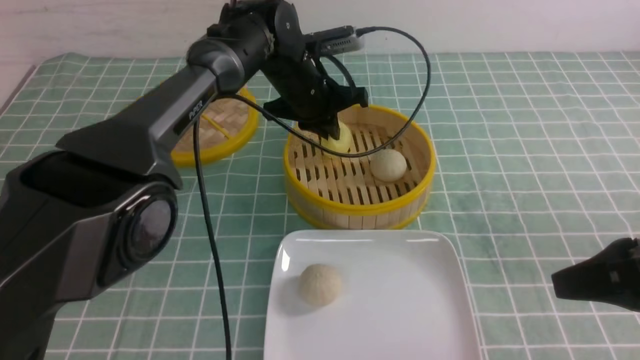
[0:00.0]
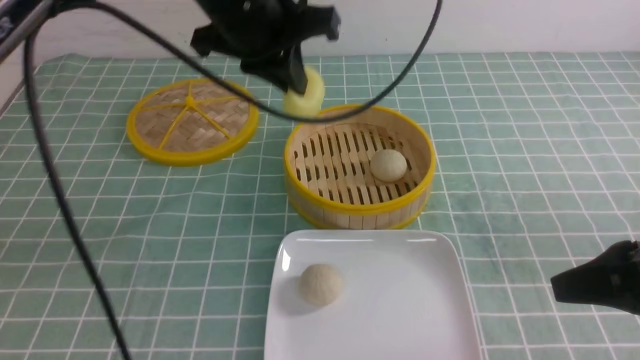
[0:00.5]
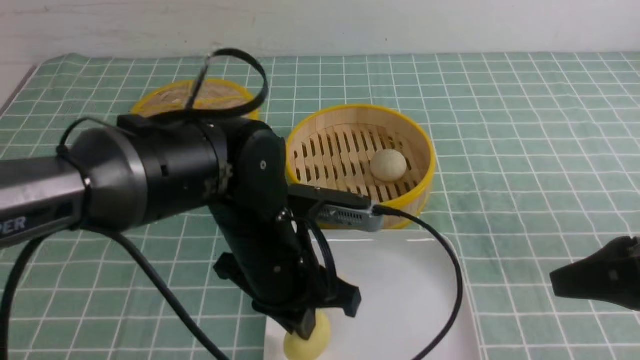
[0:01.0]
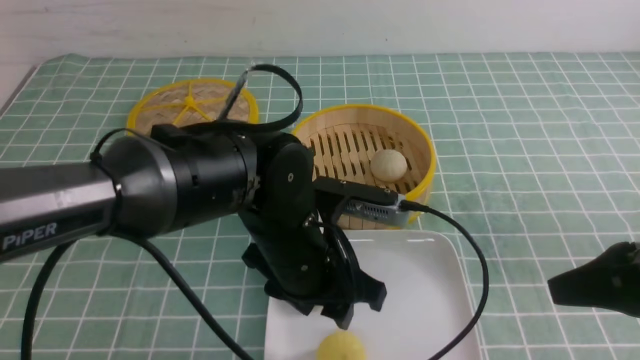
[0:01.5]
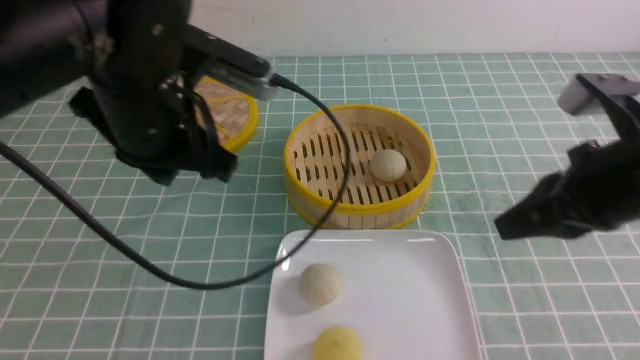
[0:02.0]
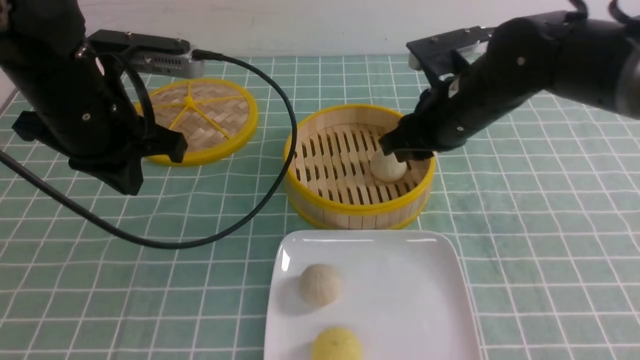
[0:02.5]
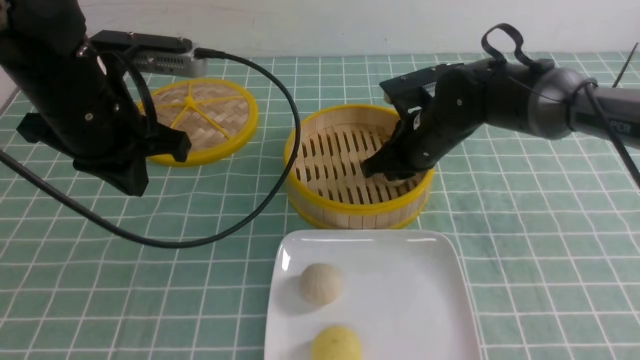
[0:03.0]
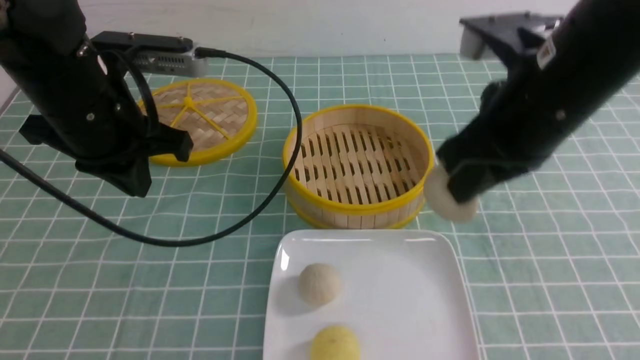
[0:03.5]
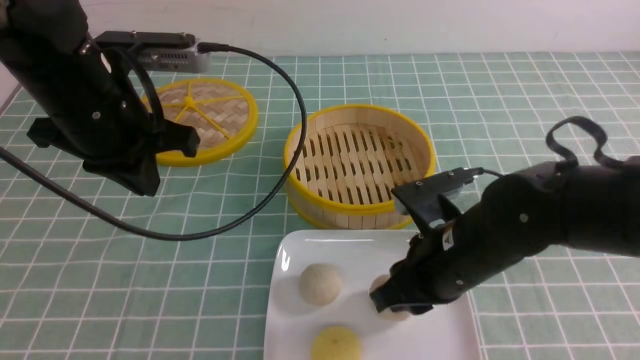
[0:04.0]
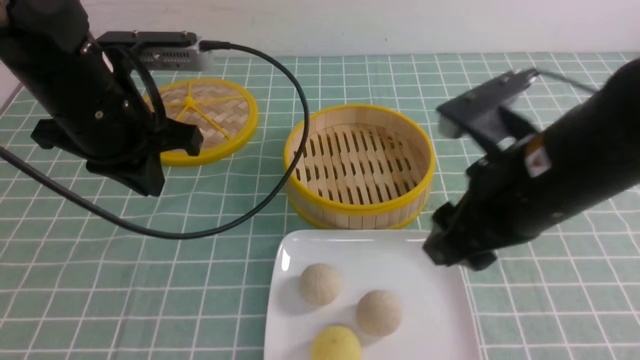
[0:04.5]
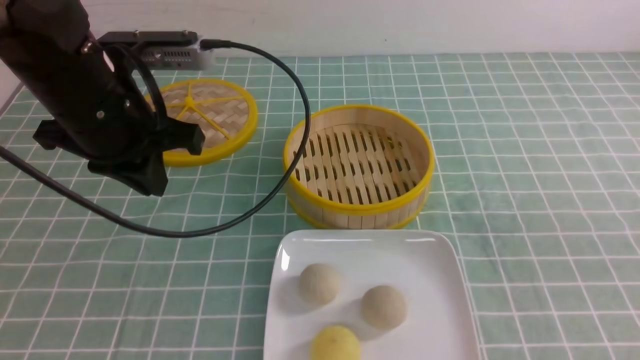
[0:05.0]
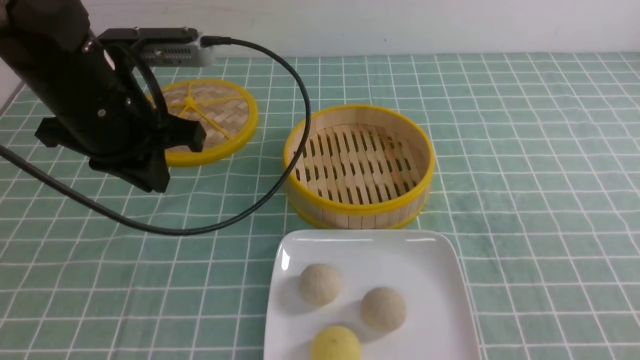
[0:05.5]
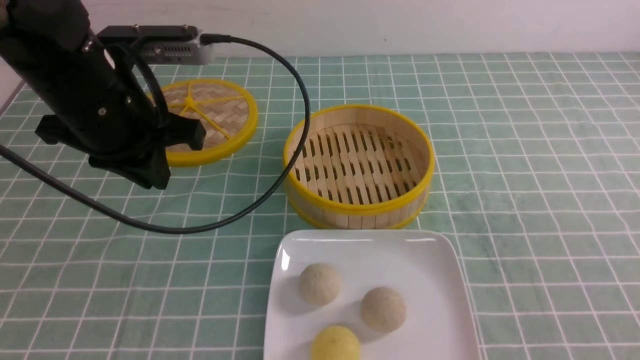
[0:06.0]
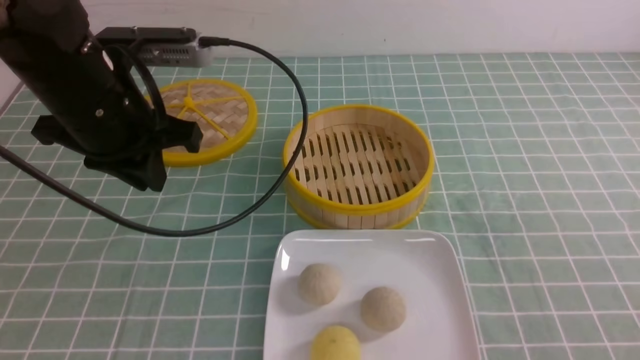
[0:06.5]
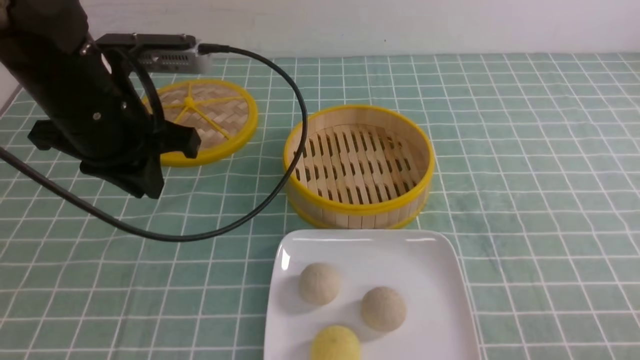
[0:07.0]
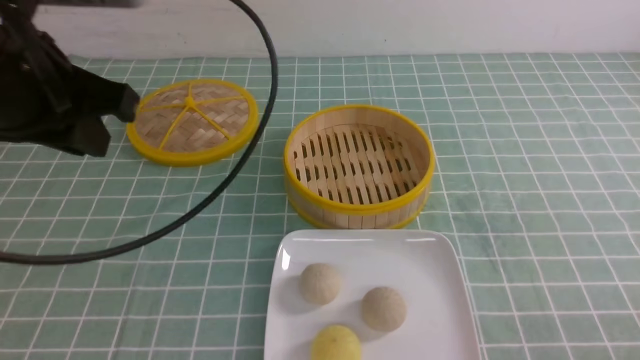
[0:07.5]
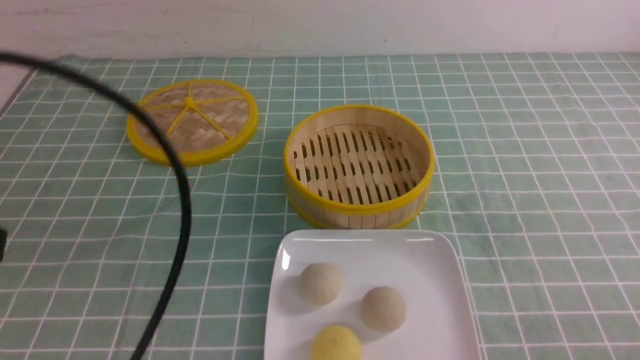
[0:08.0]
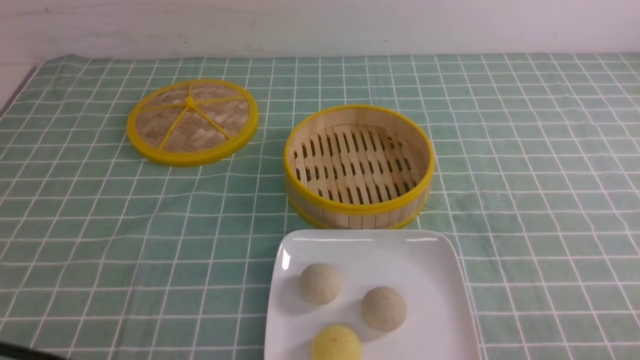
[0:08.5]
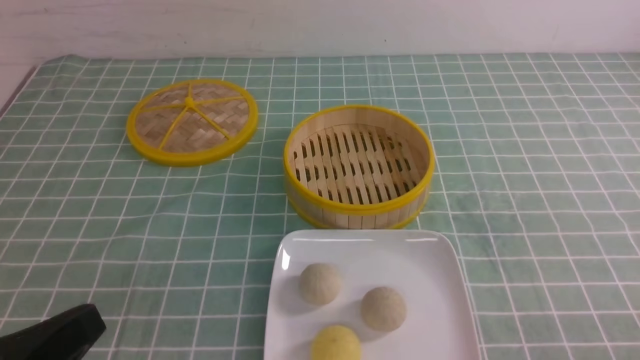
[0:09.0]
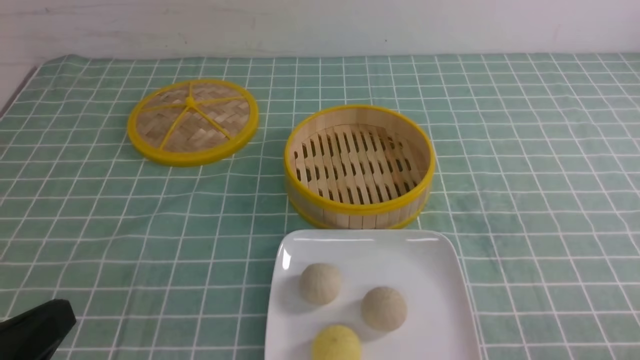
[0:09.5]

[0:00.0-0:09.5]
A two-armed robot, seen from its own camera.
Step, 0:00.5 to 0:01.0: use the left arm to put the steamed stuffed bun into the plate.
Step, 0:01.5 to 0:03.0: use the right arm to grab the steamed stuffed bun that is closest to it.
Step, 0:03.5 to 0:04.0: use the right arm to put the steamed stuffed bun into the plate.
0:00.0 to 0:02.0: The right gripper travels forward and to the left by roughly 10 cm; the left gripper shifts about 20 cm backward and to the left, and opens and closes again.
0:02.0 to 0:04.0: The left gripper shifts roughly 5 cm to the left. Meanwhile the right gripper shifts roughly 15 cm to the left and downward, moves roughly 15 cm forward and comes back, and opens its fingers.
0:04.0 to 0:05.5: The right gripper shifts approximately 30 cm backward, to the right and upward, and closes its fingers.
0:05.5 to 0:07.5: The right gripper shifts about 15 cm downward. Meanwhile the left gripper shifts some 10 cm backward and upward.
0:07.5 to 0:09.5: The left gripper goes approximately 20 cm backward and downward, and closes its fingers.

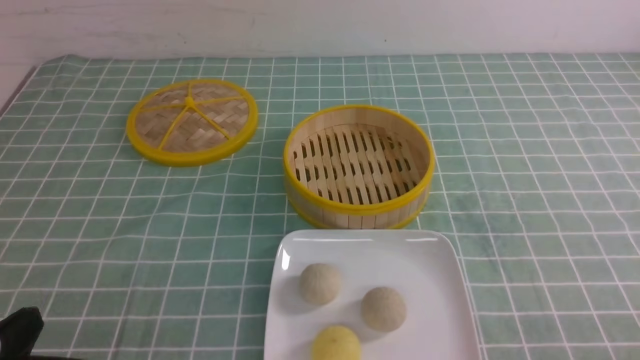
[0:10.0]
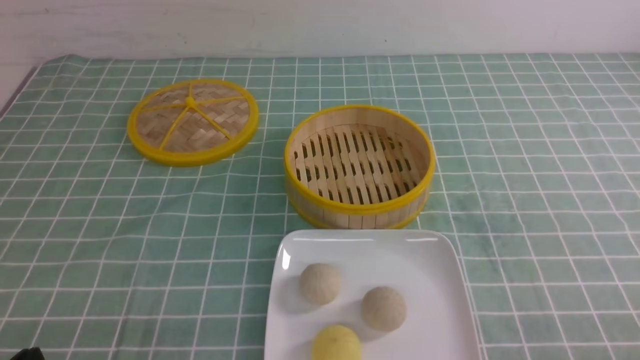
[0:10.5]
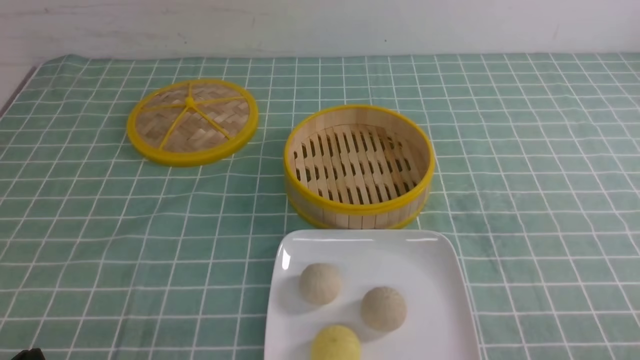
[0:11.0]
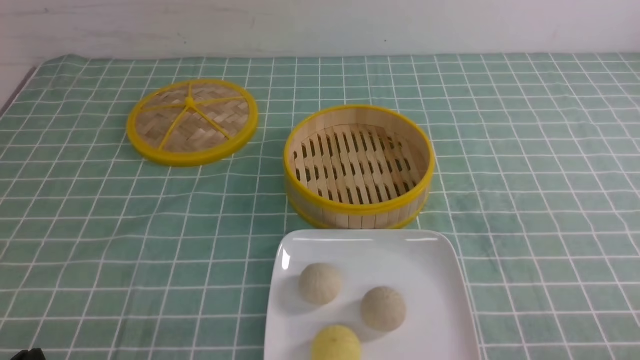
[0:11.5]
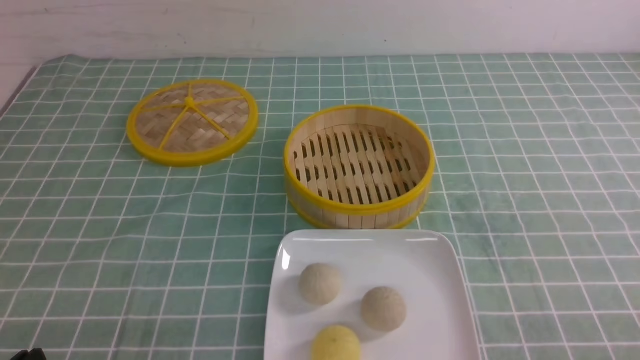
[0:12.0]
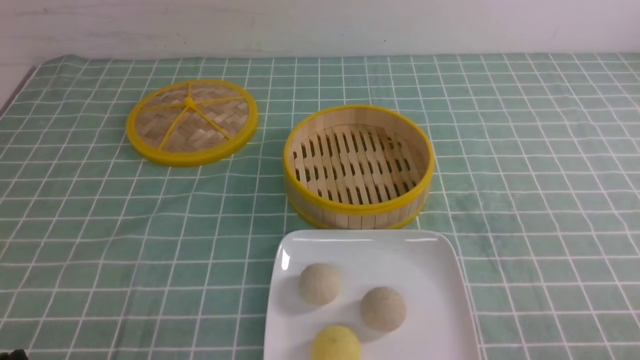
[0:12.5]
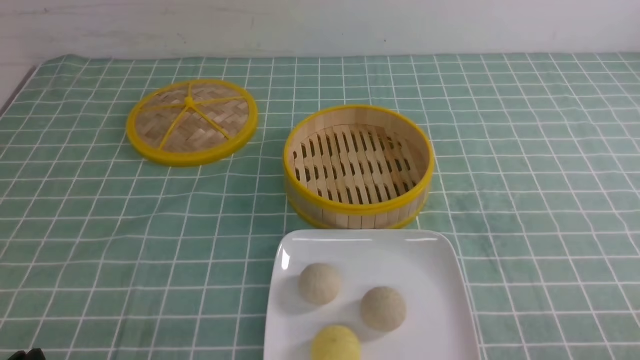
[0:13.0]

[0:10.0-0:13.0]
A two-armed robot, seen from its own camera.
0:10.0 to 0:11.5: The left gripper is displaced downward by about 5 cm.
0:11.5 to 0:13.0: Both grippers stay about where they are.

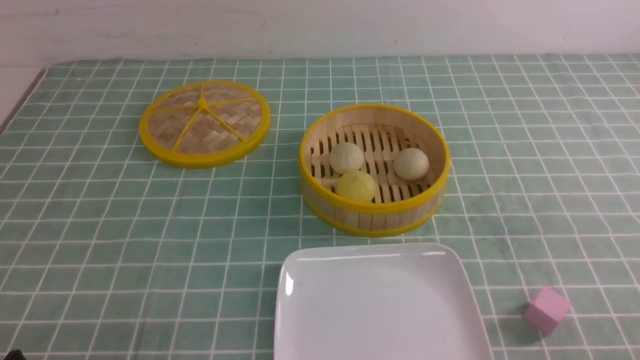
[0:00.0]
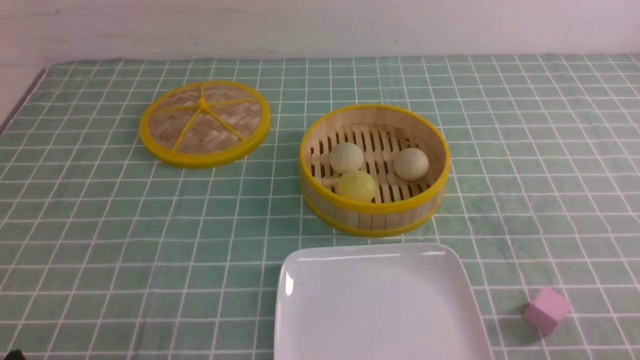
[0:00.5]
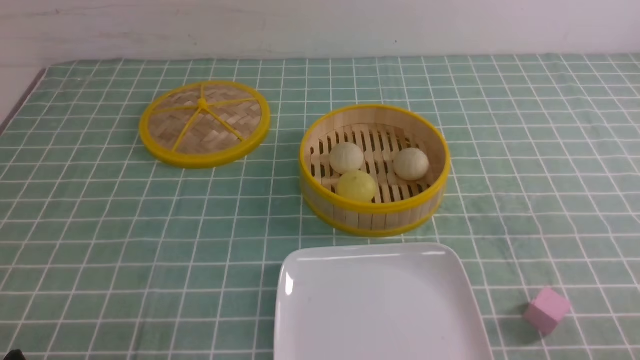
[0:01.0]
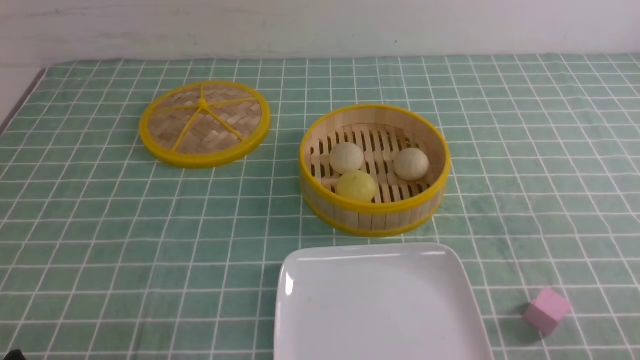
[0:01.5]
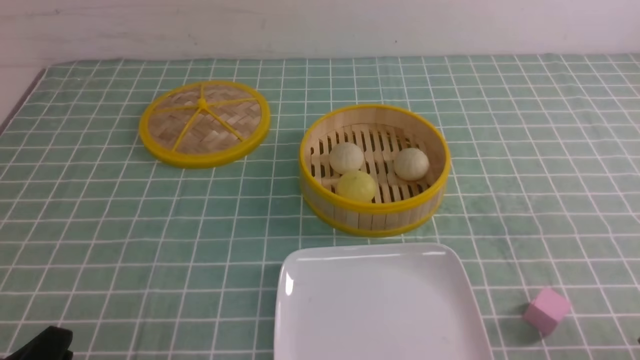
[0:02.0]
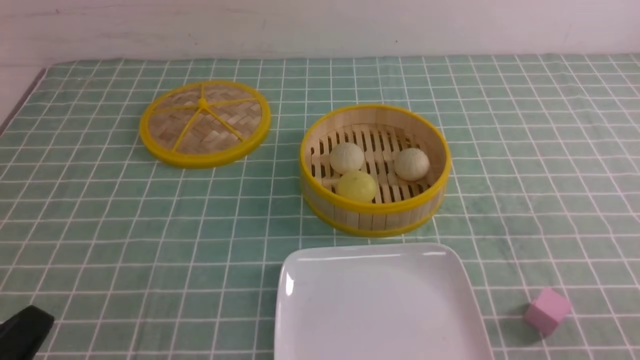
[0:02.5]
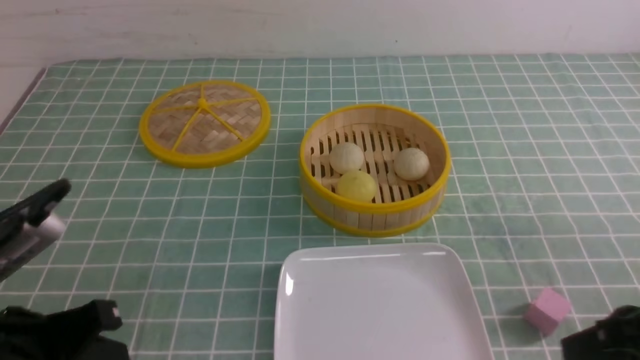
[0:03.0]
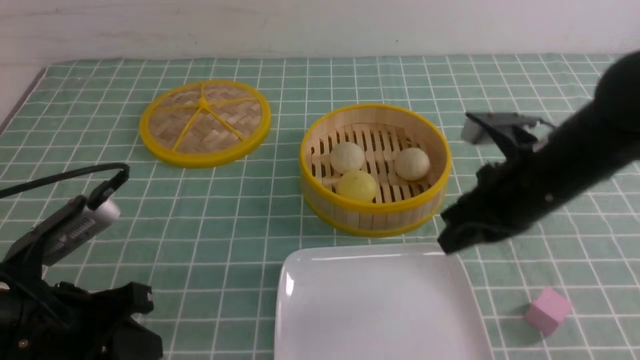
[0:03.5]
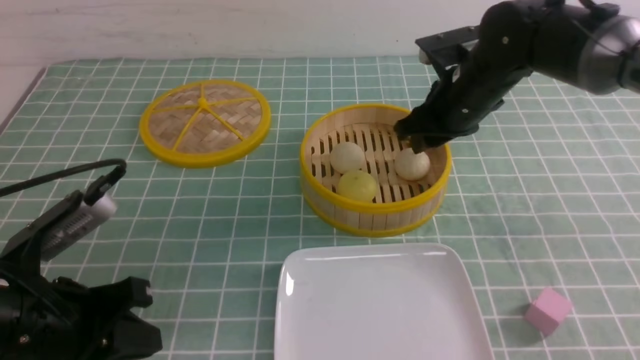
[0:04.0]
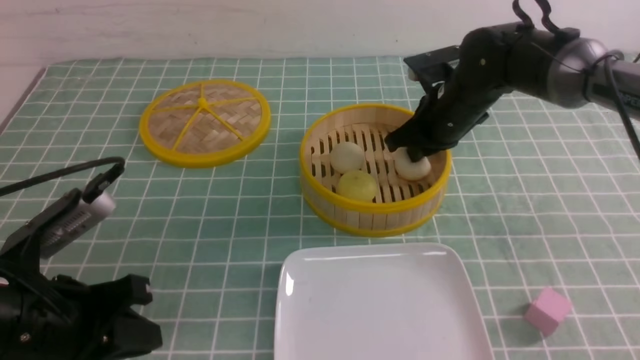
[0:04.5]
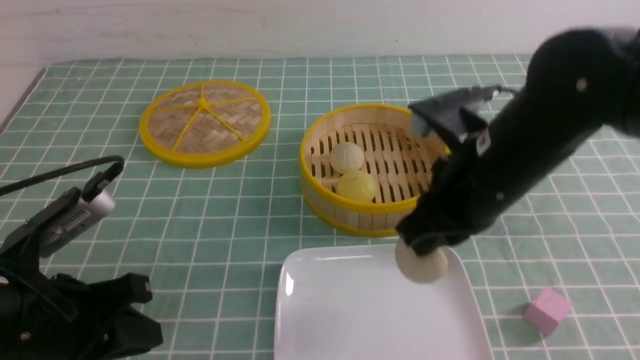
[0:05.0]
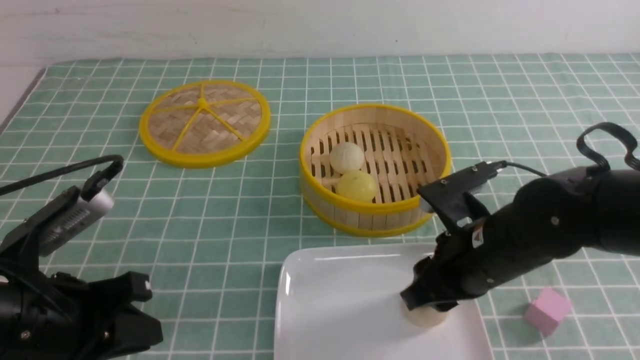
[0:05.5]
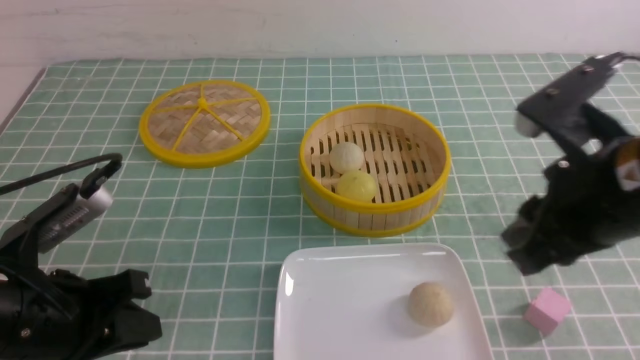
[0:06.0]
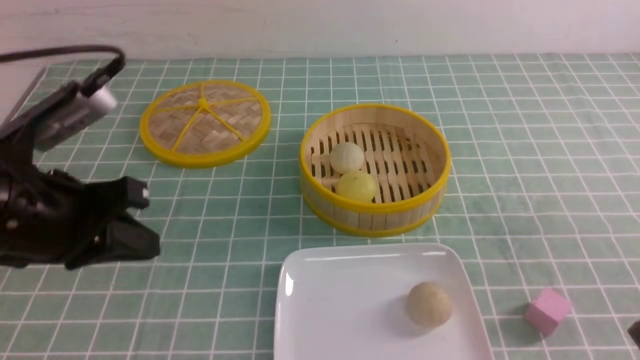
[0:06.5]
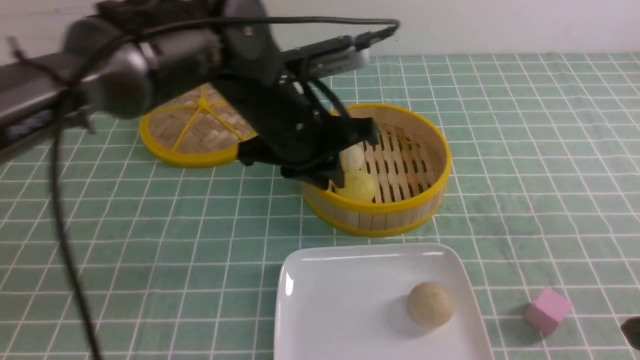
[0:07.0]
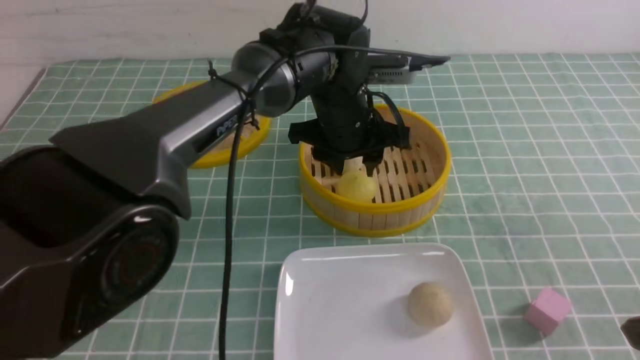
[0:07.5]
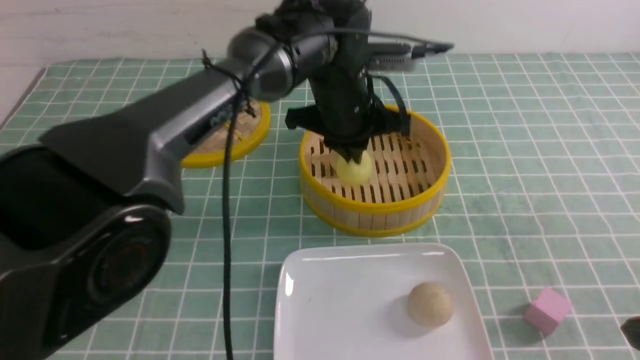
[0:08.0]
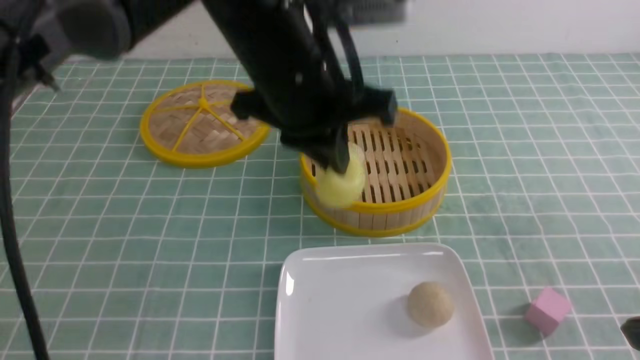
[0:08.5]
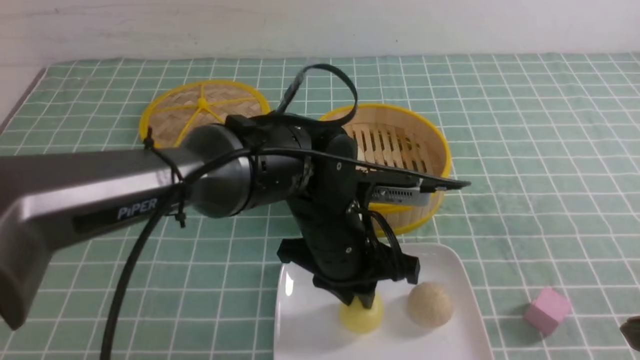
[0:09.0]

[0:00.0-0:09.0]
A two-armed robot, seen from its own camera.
Step, 0:00.0 to 0:04.5: use the right arm to grab the steamed stuffed bun that is closest to it.
Step, 0:05.0 to 0:05.5: use the right arm to put the steamed stuffed bun into the plate.
Step, 0:06.0 to 0:07.5: use the left arm to grab the steamed stuffed bun that is closest to it.
Step, 0:08.0 to 0:09.0: use the left arm to put the steamed stuffed bun into the plate.
0:02.0 to 0:04.5: The left gripper shifts approximately 10 cm forward and upward, and closes its fingers; the right gripper moves forward and to the left, approximately 40 cm, and closes up.
0:04.5 to 0:07.0: The right gripper shifts some 30 cm backward, and opens, then closes once more. The left gripper goes approximately 25 cm to the right and forward.
0:07.0 to 0:09.0: The left gripper moves downward and backward, roughly 10 cm, and closes and opens again.
